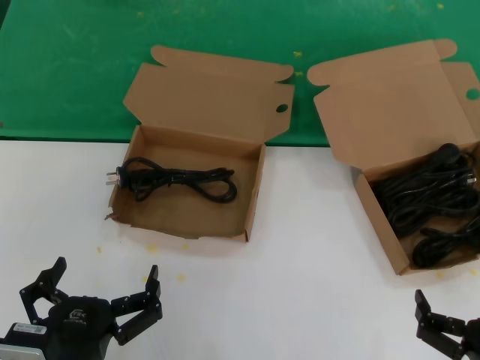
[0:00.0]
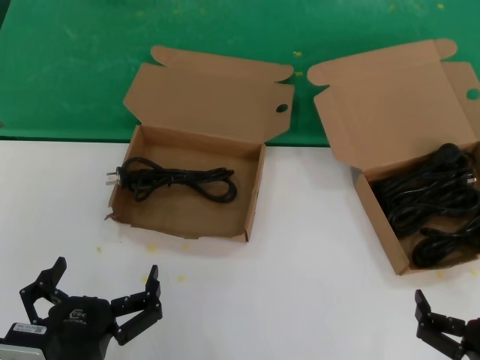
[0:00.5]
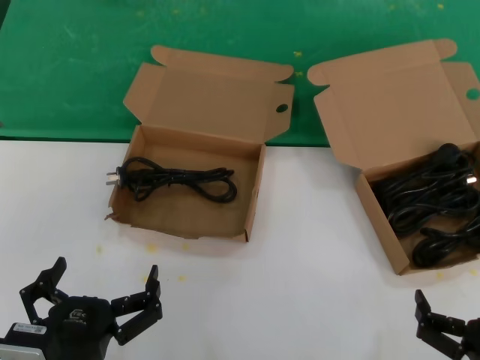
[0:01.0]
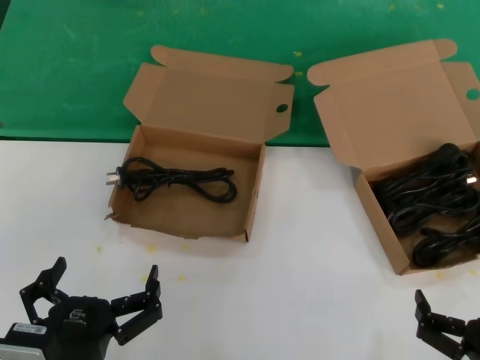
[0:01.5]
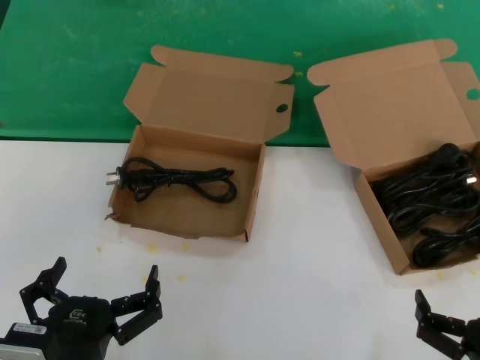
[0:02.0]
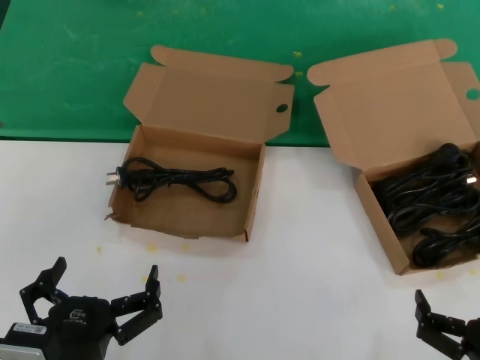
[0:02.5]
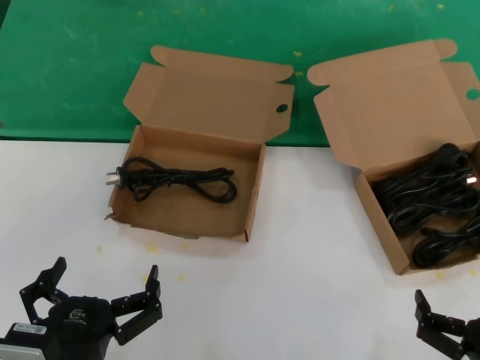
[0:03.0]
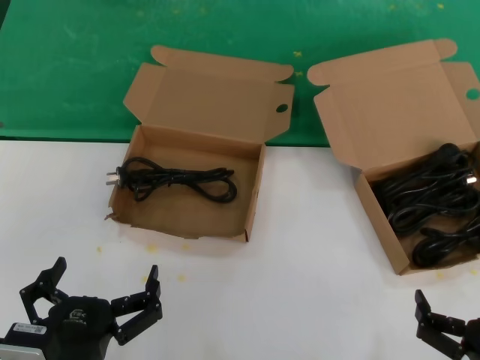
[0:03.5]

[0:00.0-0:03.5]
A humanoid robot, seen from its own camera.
Task of the whole recording: take the parts from the box containing them and put them into an empty box.
0:00.0 to 0:03.5: The two hands keep their place.

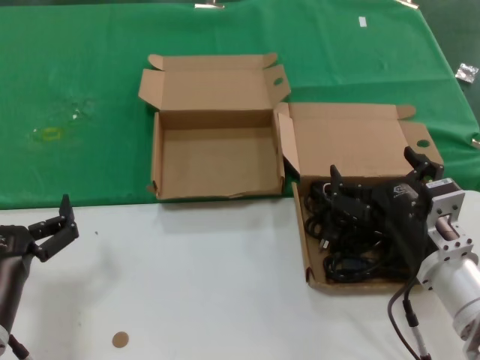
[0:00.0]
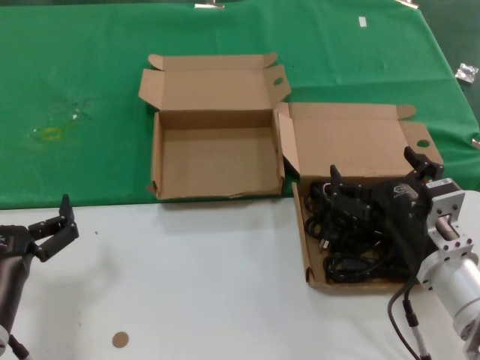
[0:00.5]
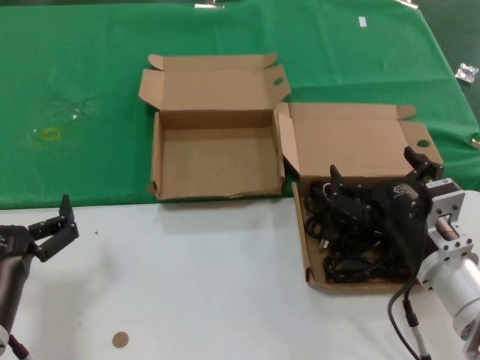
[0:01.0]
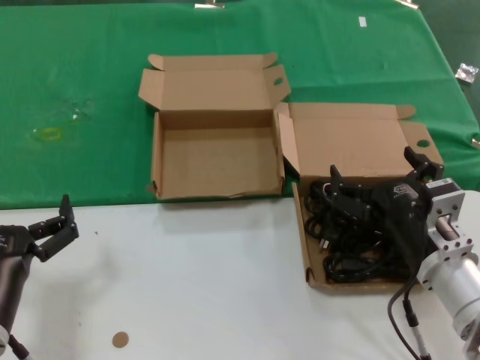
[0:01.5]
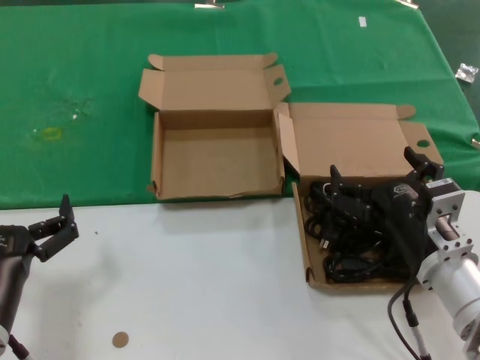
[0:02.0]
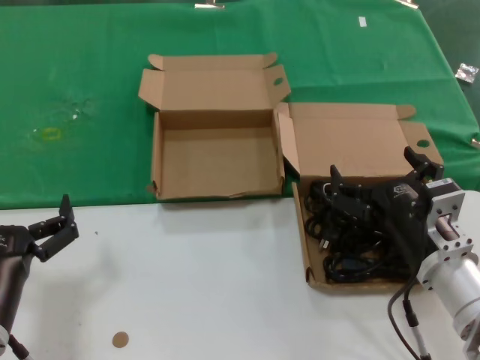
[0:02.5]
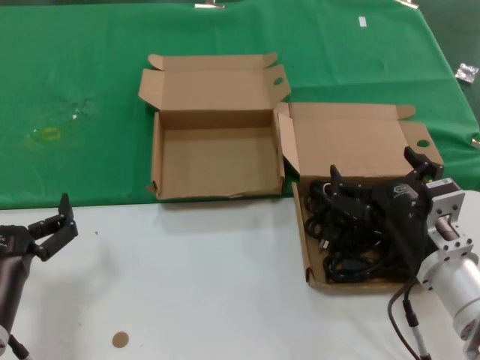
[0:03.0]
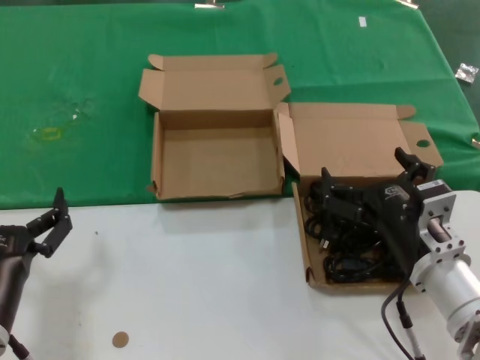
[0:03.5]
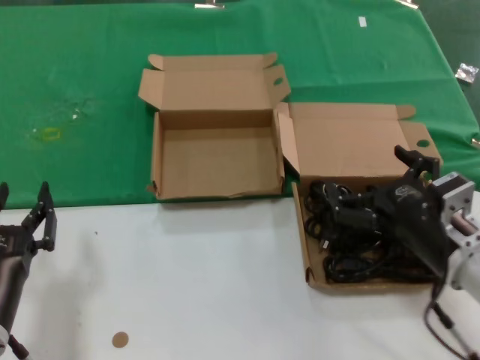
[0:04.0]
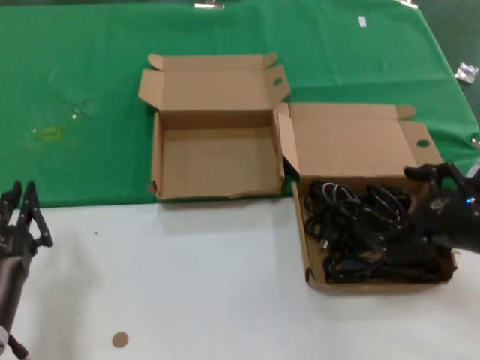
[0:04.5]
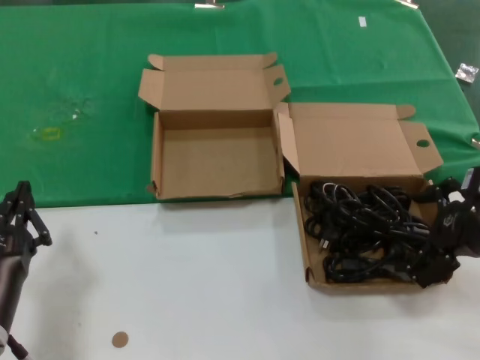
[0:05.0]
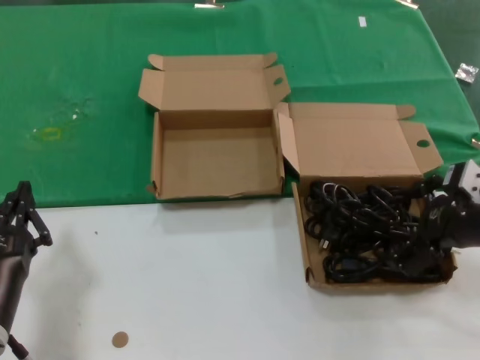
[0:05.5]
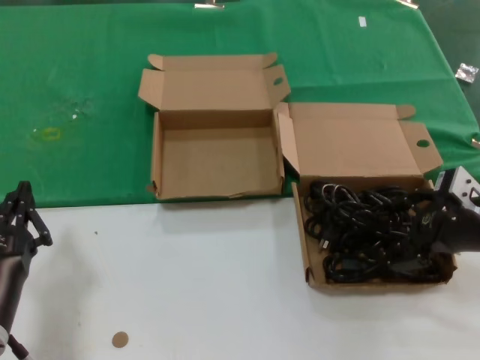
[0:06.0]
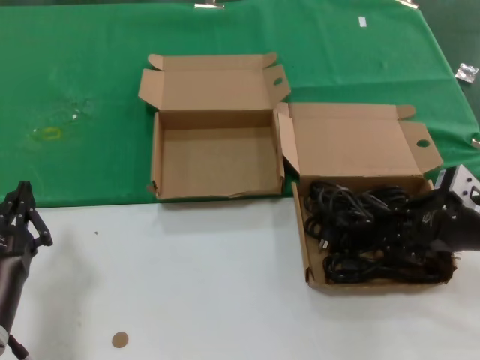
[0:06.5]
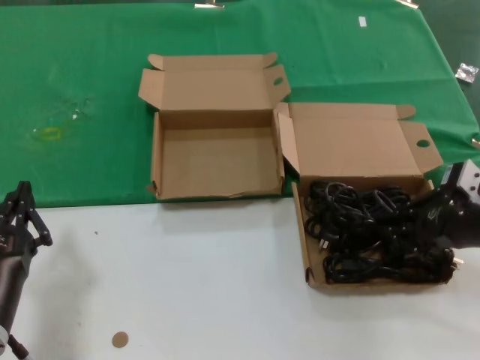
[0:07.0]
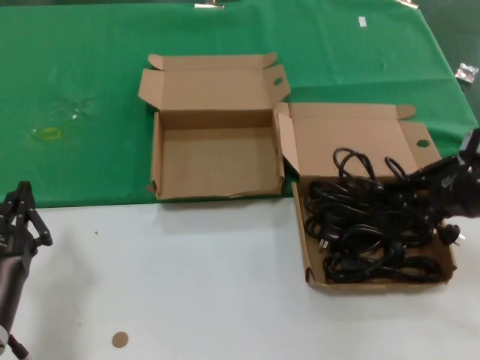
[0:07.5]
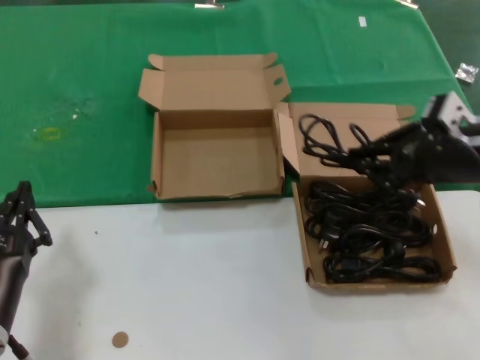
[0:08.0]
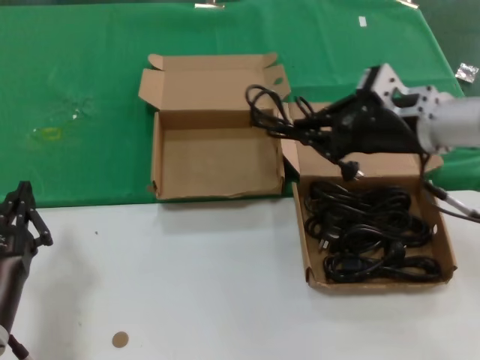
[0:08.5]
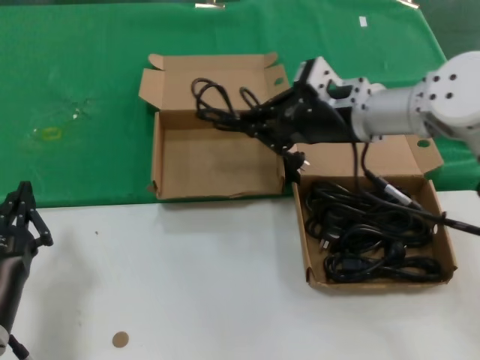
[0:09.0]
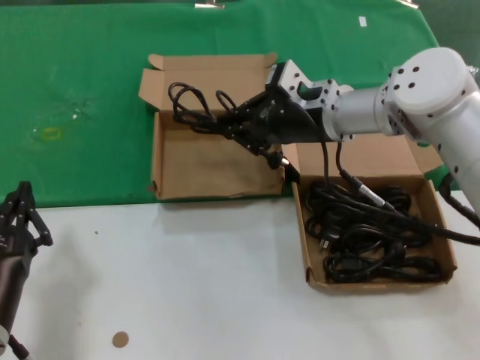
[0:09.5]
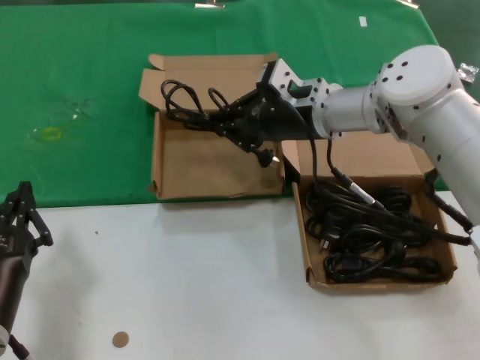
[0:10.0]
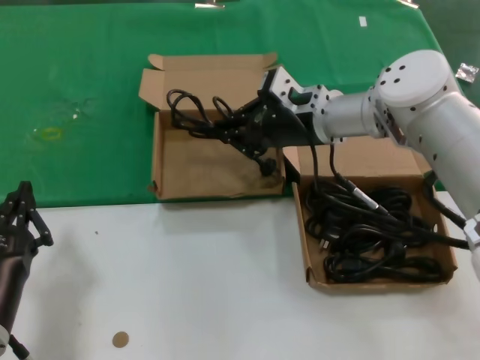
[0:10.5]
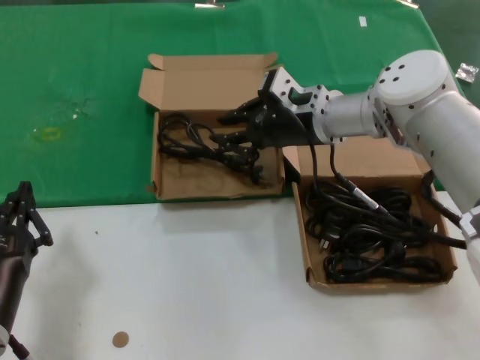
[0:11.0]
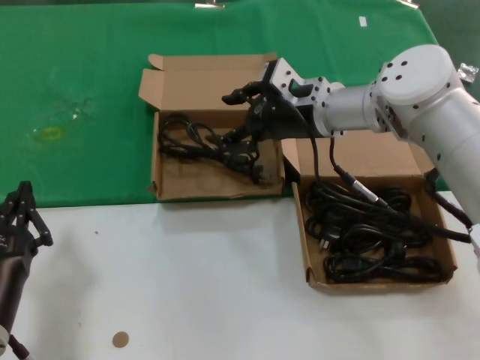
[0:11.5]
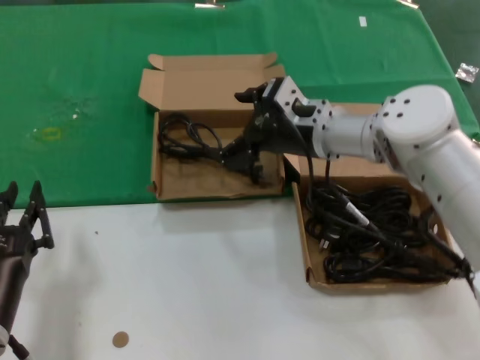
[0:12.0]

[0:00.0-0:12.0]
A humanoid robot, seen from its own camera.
Task of the whole recording: take the parts from the box containing them and put them into an empty box.
Step, 0:00.0 to 0:06.5: Grasp the data cable.
Step, 0:07.0 to 0:11.5: Place the data cable in the another box.
0:00.0 to 0:02.0: The two hands keep their place.
0:02.0 to 0:04.0: The hands make only small movements.
0:04.0 to 0:06.0: The right hand heads to the right, upward and forward, covering some 15 cm.
0:06.0 to 0:08.0: The right hand heads upward, covering some 5 cm.
0:08.0 to 0:10.0: The right hand goes roughly 20 cm to the left and forward.
0:10.0 to 0:12.0: The hands make only small movements.

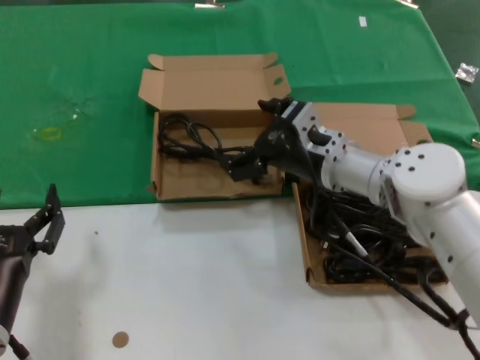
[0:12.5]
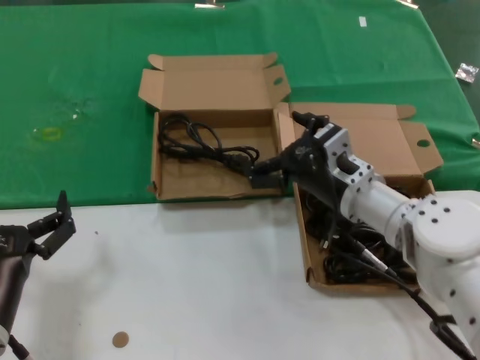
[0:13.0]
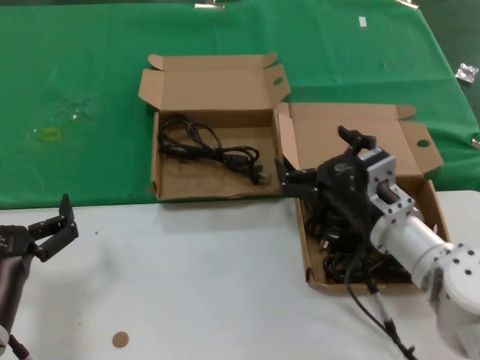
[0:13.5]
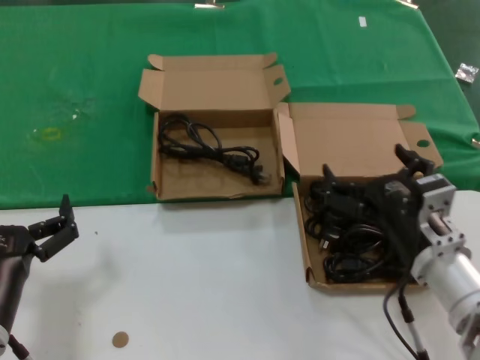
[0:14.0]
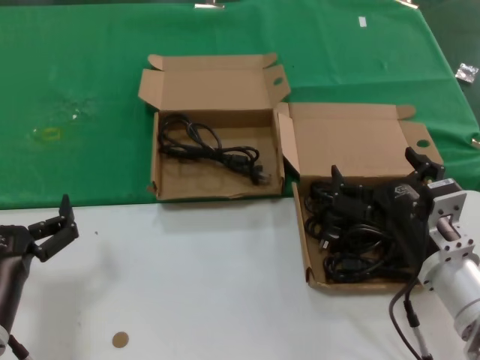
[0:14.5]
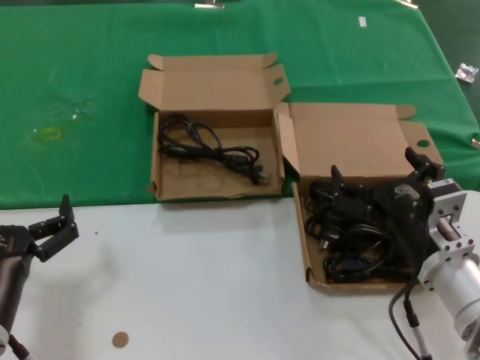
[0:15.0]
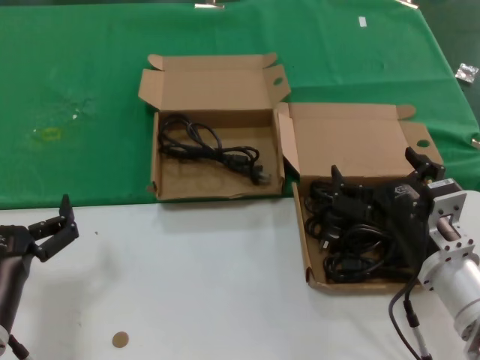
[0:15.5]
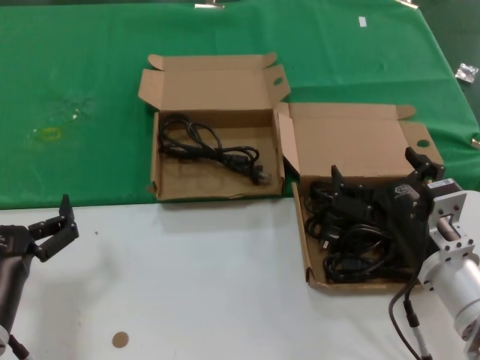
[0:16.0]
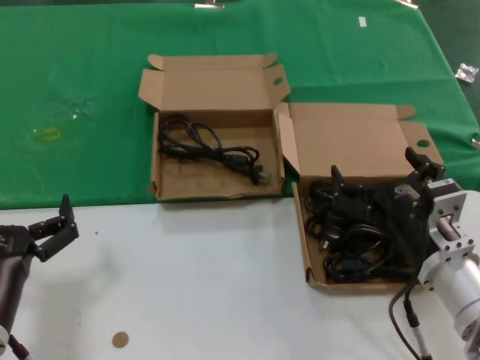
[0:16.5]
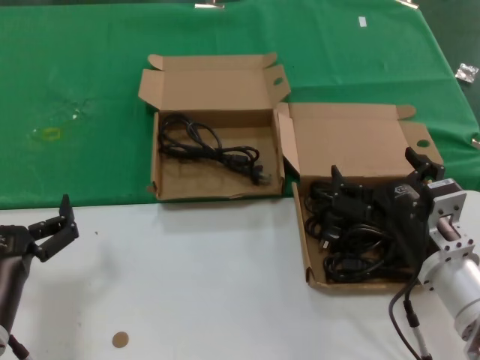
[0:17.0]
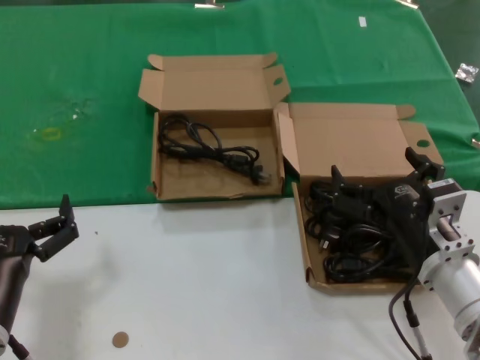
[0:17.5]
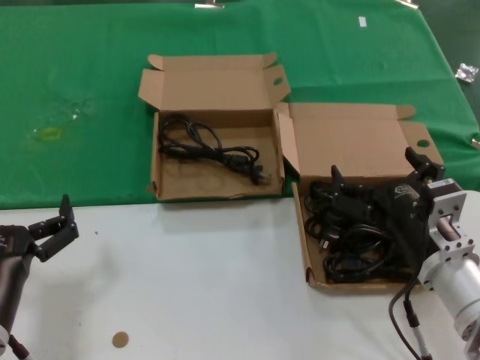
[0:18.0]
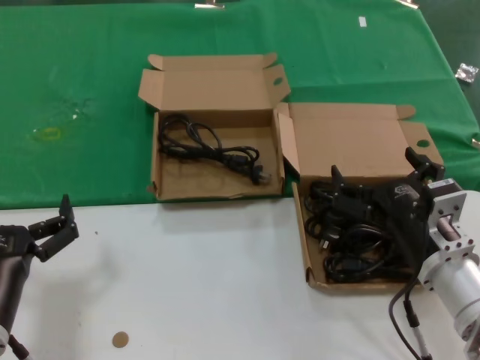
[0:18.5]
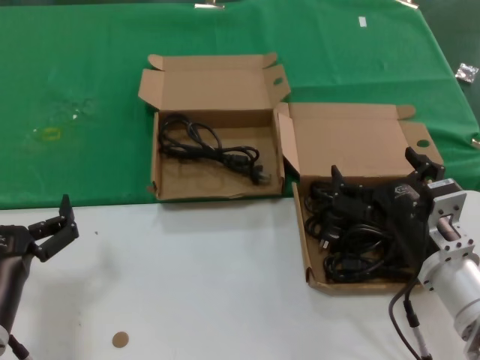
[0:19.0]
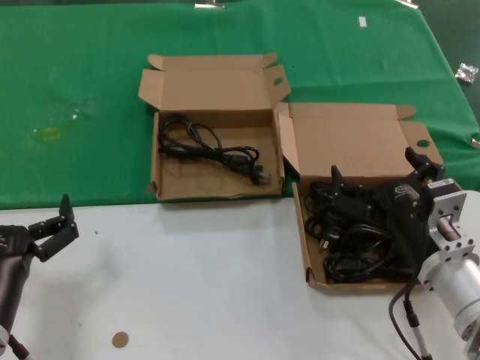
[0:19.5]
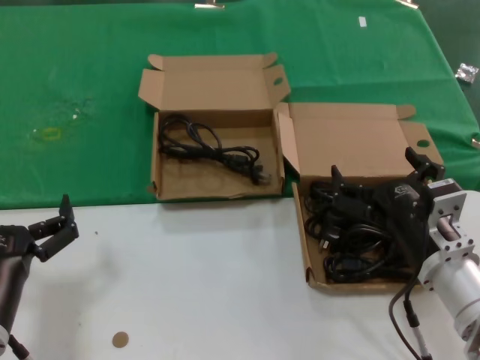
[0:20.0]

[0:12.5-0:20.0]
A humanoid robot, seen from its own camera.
Task of the whole recording: take the parts from the box containing them and put them into an empty box.
0:12.5 to 0:14.5: The right hand goes roughly 20 cm backward.
0:14.5 to 0:20.0: The two hands keep their place.
